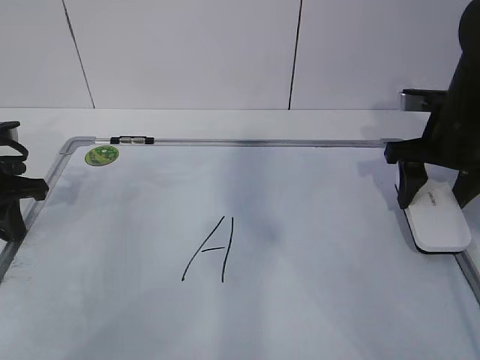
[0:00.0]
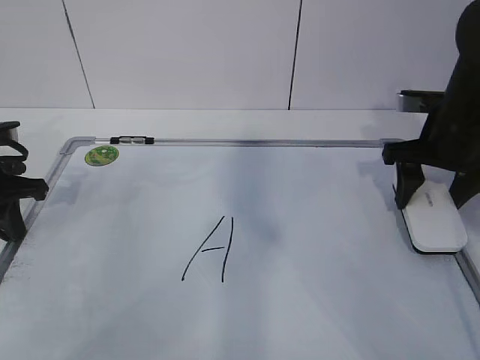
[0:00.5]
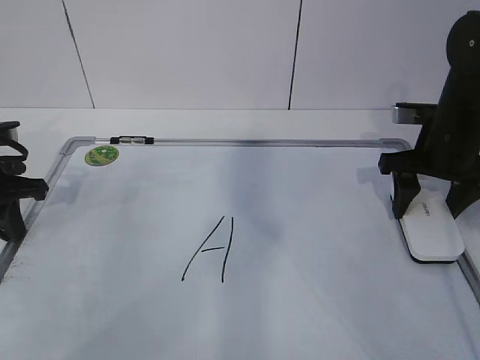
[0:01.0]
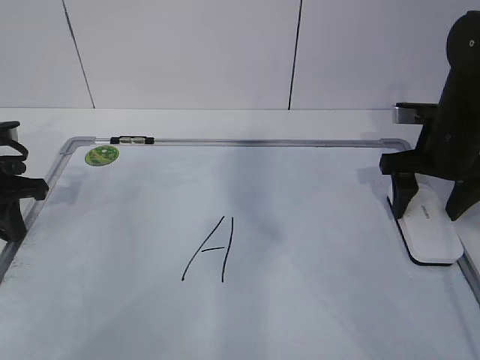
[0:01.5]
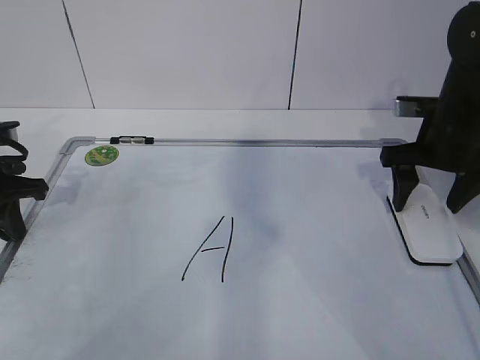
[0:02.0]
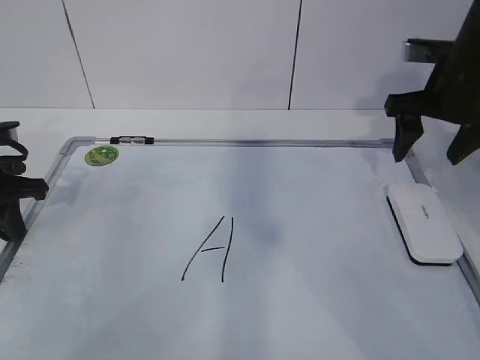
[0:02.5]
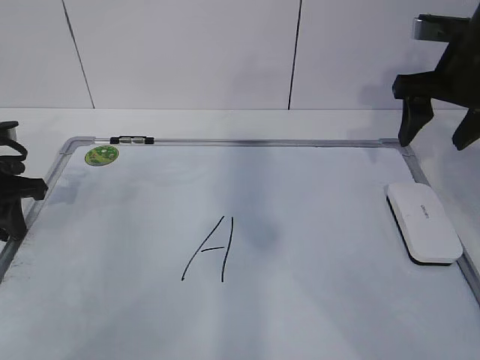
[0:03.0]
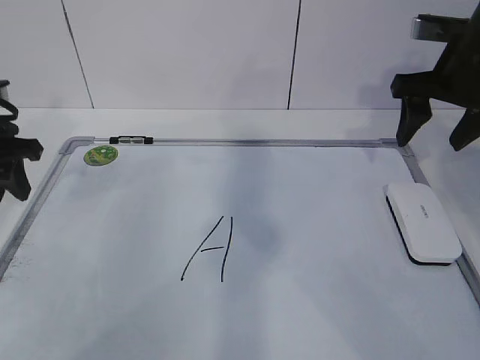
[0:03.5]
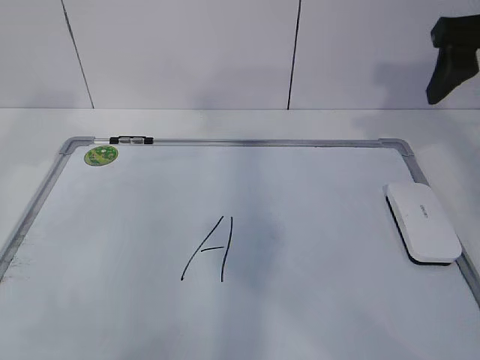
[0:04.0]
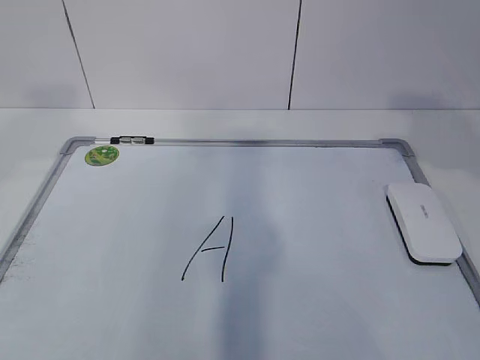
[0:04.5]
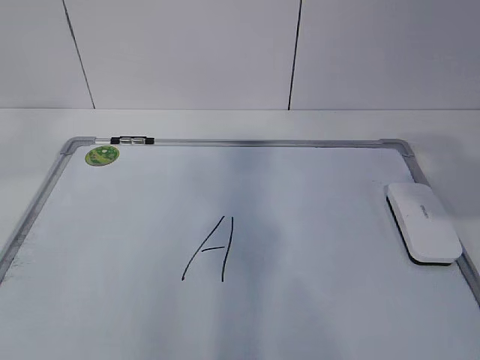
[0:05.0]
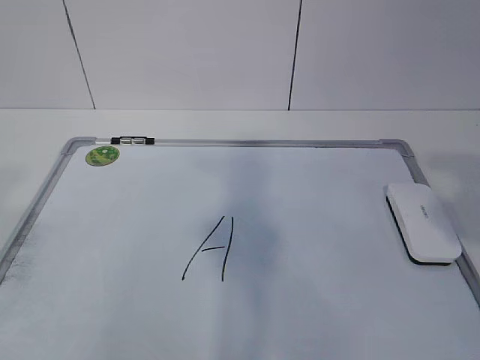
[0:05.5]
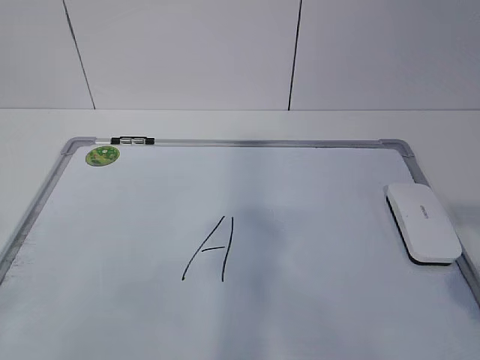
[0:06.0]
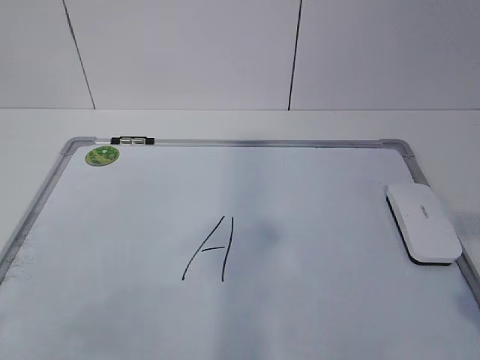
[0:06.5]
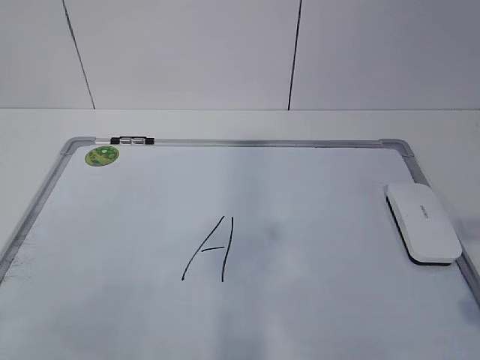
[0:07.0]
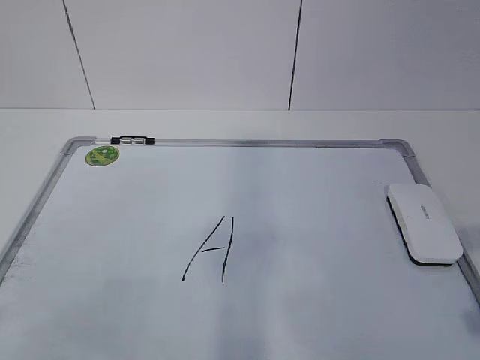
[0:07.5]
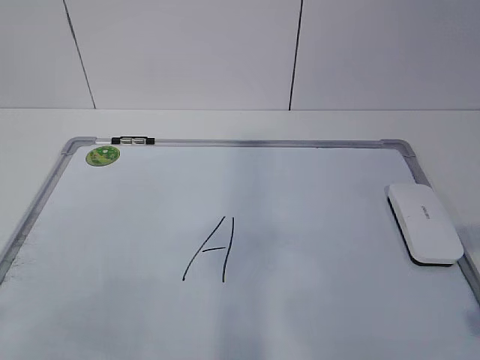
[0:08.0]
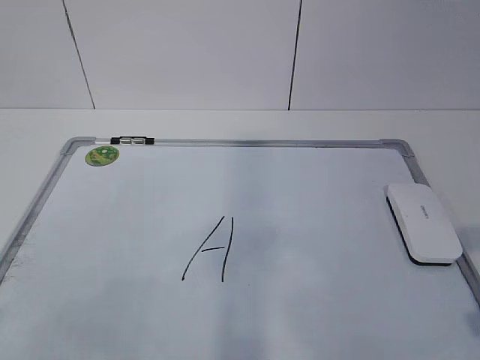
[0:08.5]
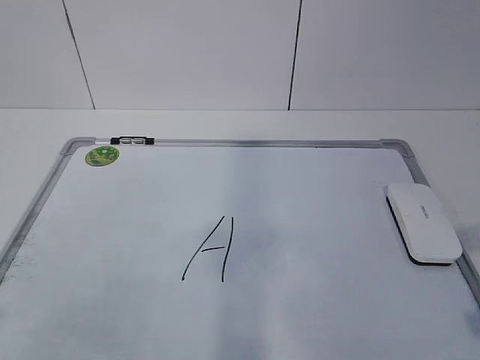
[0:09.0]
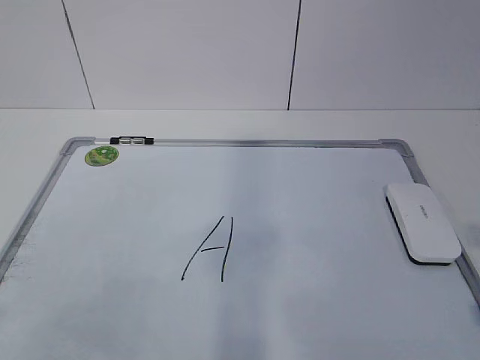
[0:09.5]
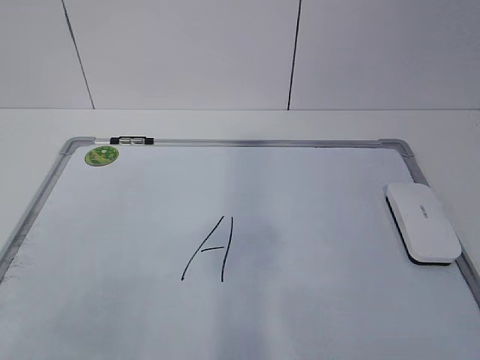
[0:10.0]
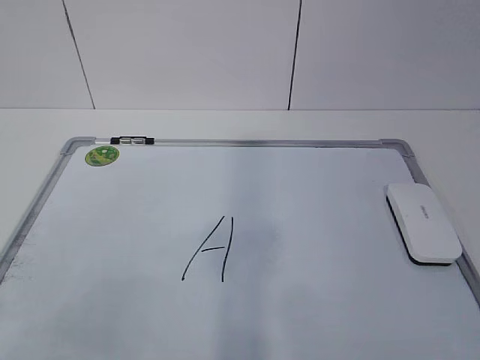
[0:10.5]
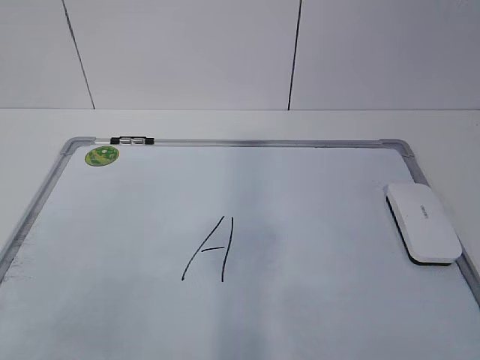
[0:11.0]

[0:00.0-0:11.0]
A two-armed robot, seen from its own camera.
Task of the whole recording: pick up the eraser on the blackboard and erase the letter "a".
0:00.0 to 0:02.0: The right gripper opens its fingers.
0:02.0 to 0:03.5: The right gripper travels upward by roughly 10 cm; the left gripper opens up.
0:03.5 to 0:05.5: The right gripper goes some 30 cm backward. Meanwhile the left gripper moves backward and upward, roughly 35 cm.
0:05.5 to 0:07.5: The right gripper travels downward by approximately 10 cm.
0:07.5 to 0:09.0: Neither gripper changes place.
